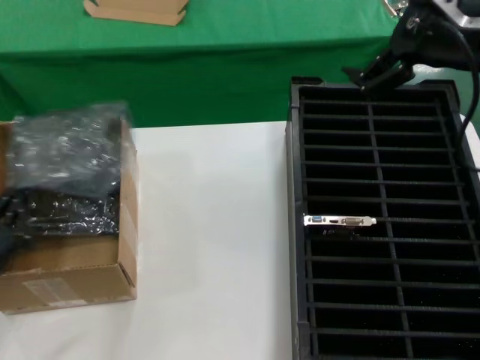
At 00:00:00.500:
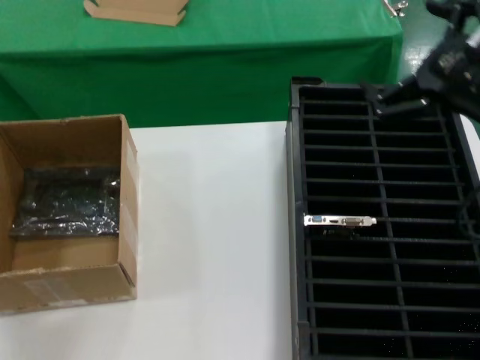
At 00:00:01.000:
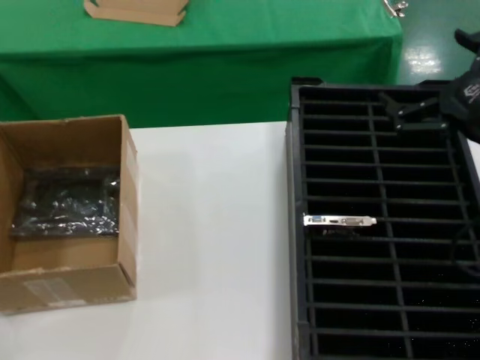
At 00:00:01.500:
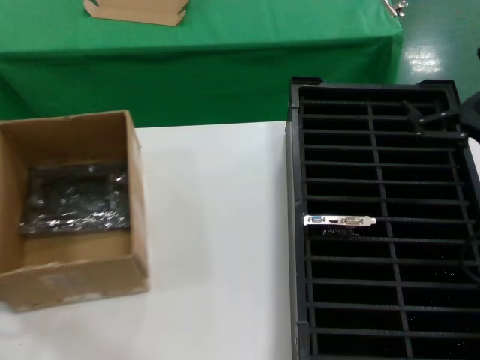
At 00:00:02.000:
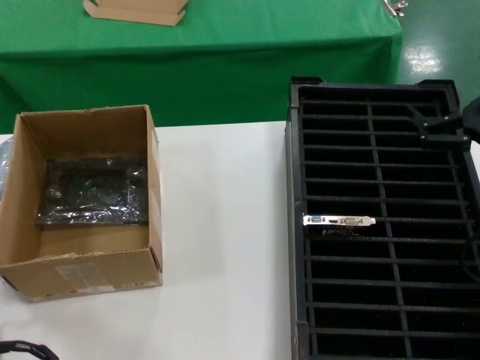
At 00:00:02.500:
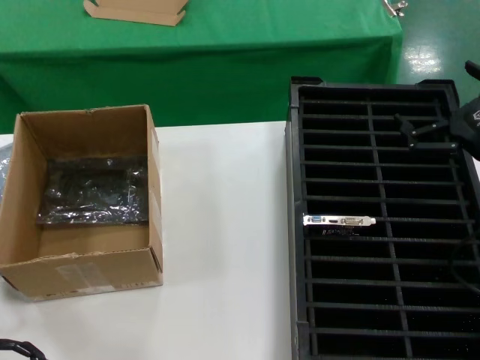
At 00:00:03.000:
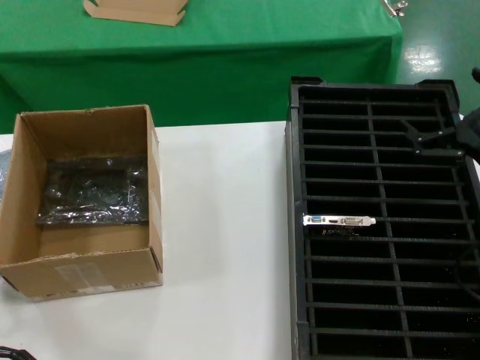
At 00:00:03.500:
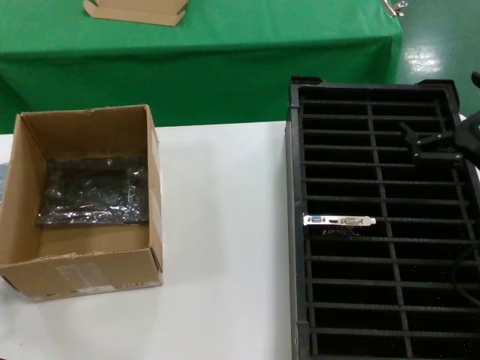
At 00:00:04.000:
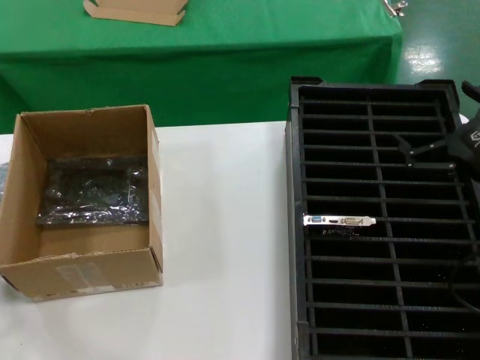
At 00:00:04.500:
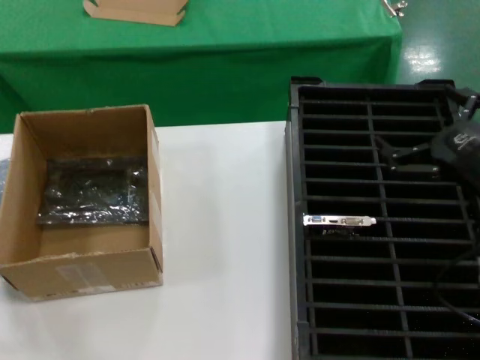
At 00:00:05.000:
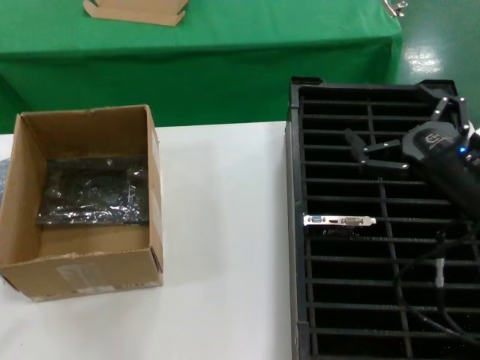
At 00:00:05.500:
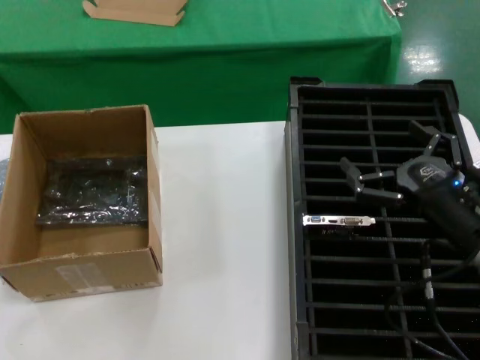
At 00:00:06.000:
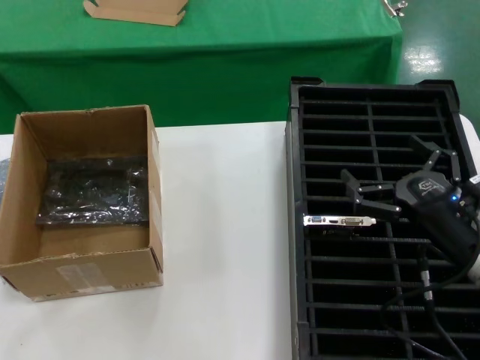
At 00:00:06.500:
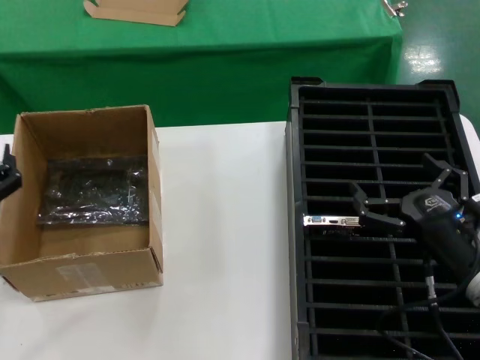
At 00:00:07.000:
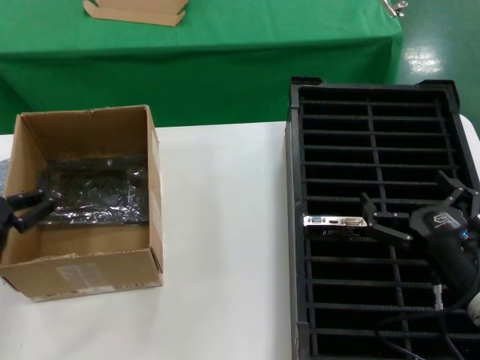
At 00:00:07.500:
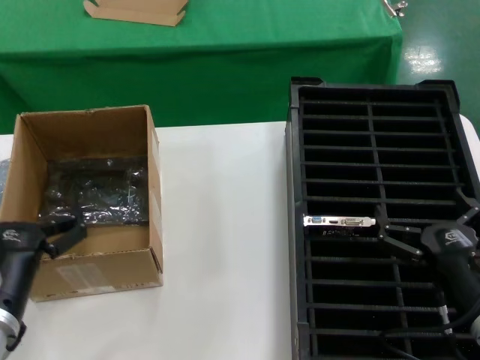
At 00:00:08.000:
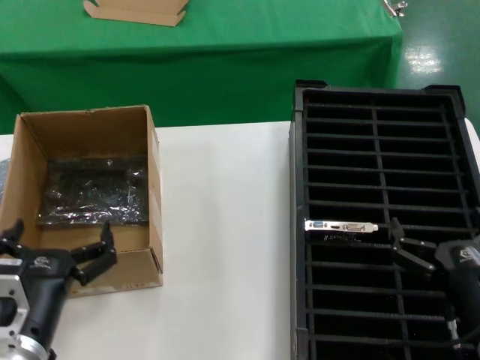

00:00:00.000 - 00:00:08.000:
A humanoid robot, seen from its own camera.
Task of the whole recording: take out graphics card from box remove packaging put into black container.
Step, 00:00:00.000 - 00:00:04.500: Place the down the bag.
00:00:00.000 - 00:00:02.000: The left hand travels forward by approximately 10 cm, and moves about 15 cm to the left and comes back, while the right hand travels downward and to the right by roughly 20 cm.
00:00:02.000 - 00:00:04.000: The hands move only a little.
00:00:04.000 - 00:00:06.000: The left hand goes about 15 cm upward, to the right and backward; the right hand travels downward and to the left by approximately 10 cm.
00:00:06.000 - 00:00:08.000: The right hand moves backward and downward, approximately 10 cm. The left hand shifts roughly 15 cm to the right, downward and backward.
